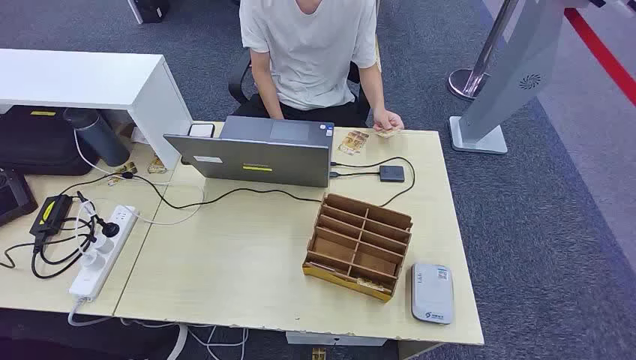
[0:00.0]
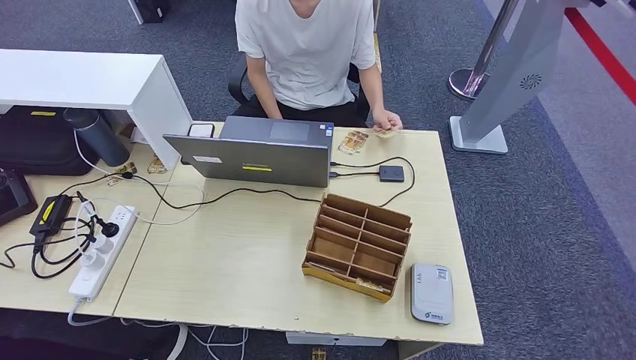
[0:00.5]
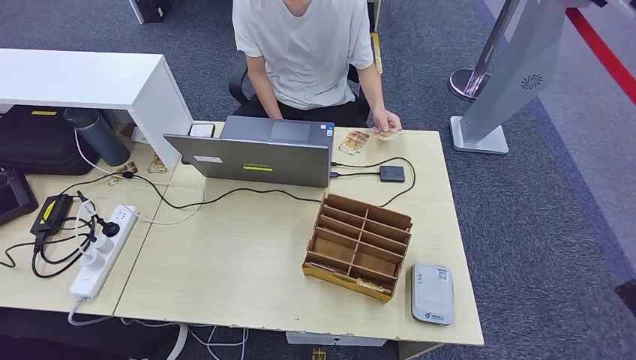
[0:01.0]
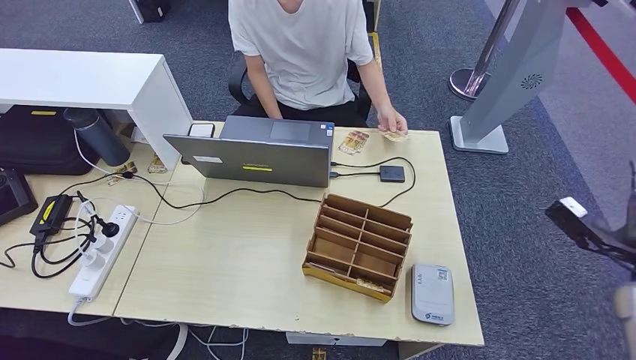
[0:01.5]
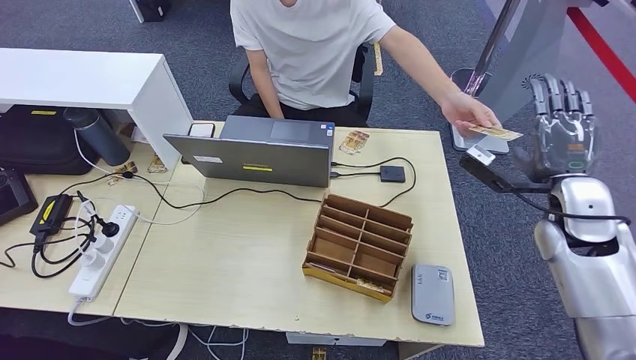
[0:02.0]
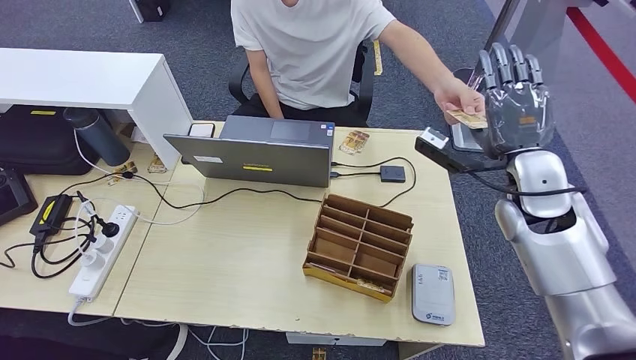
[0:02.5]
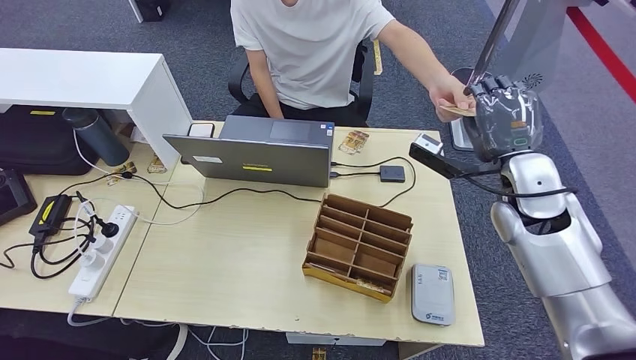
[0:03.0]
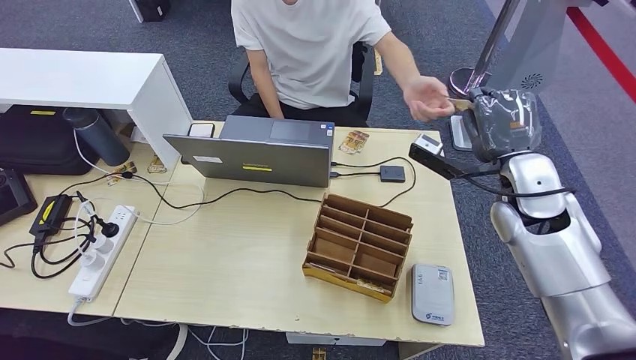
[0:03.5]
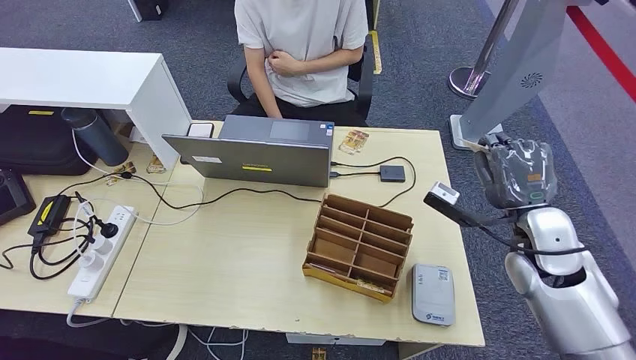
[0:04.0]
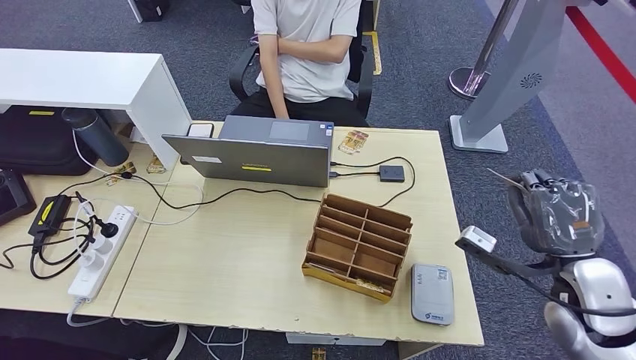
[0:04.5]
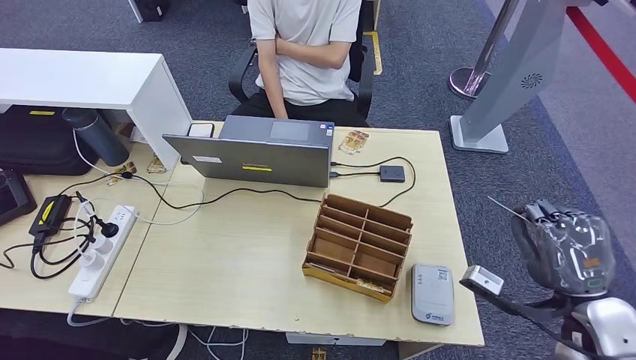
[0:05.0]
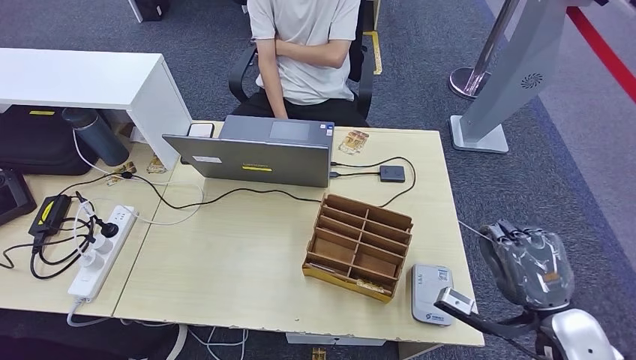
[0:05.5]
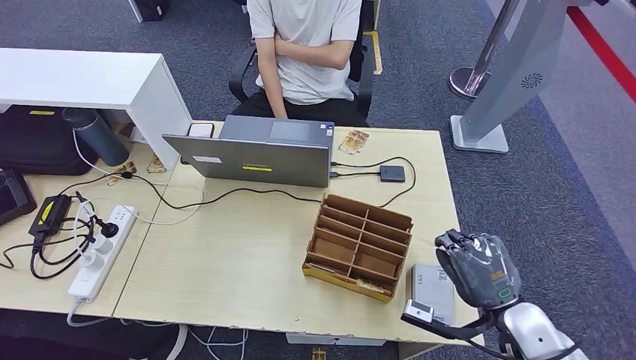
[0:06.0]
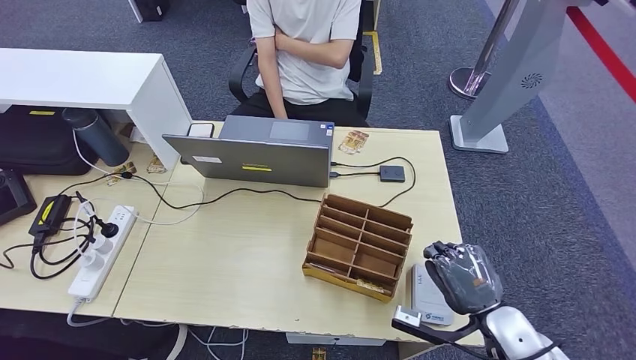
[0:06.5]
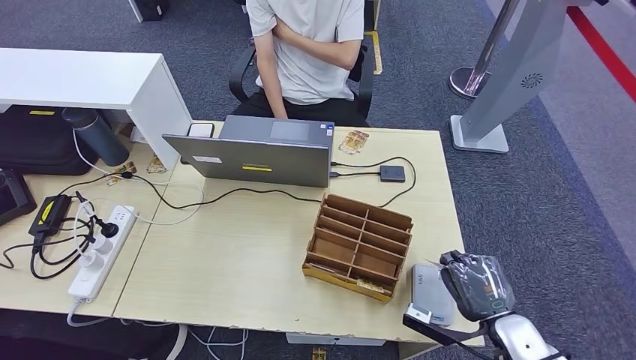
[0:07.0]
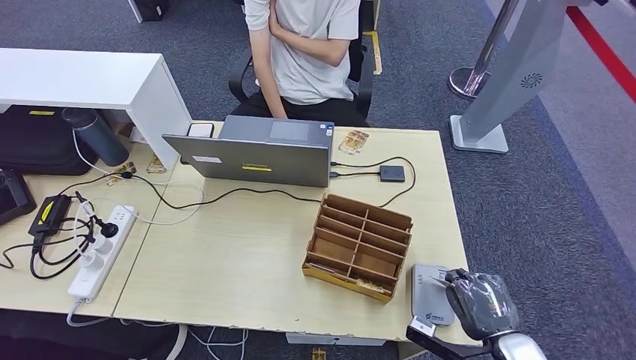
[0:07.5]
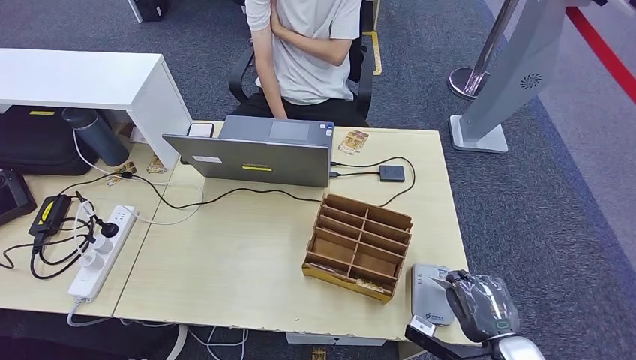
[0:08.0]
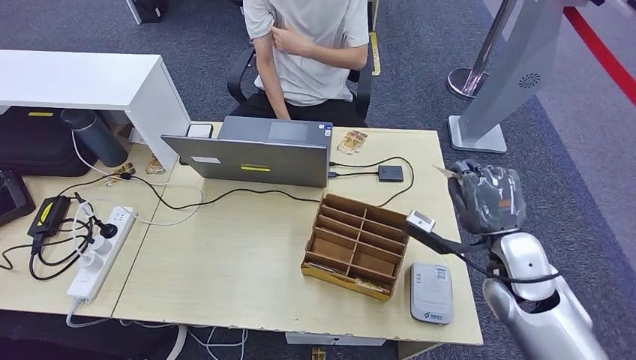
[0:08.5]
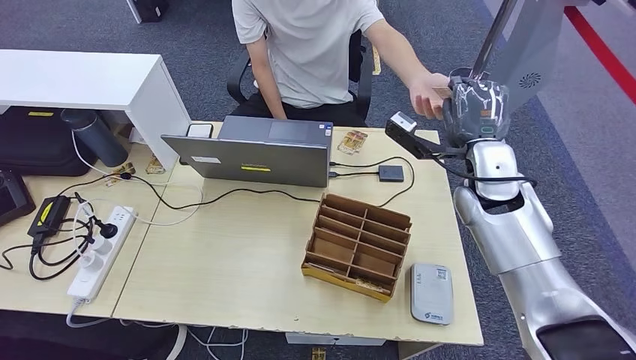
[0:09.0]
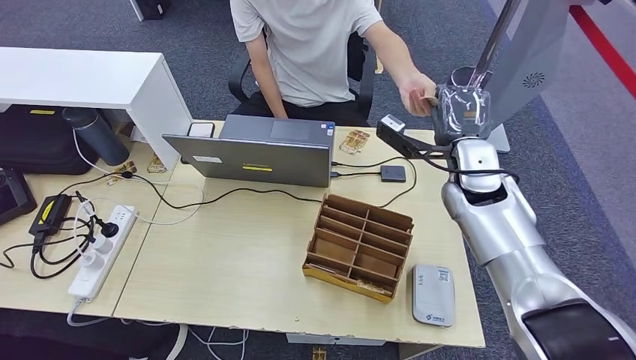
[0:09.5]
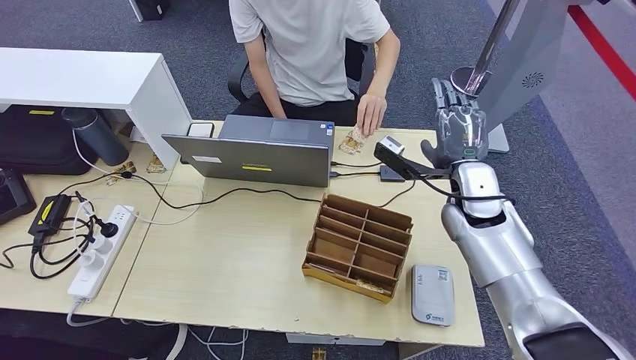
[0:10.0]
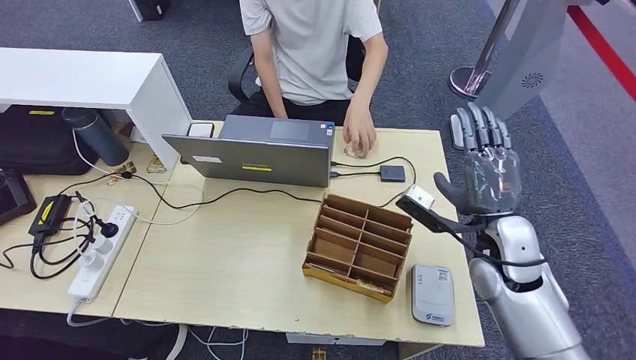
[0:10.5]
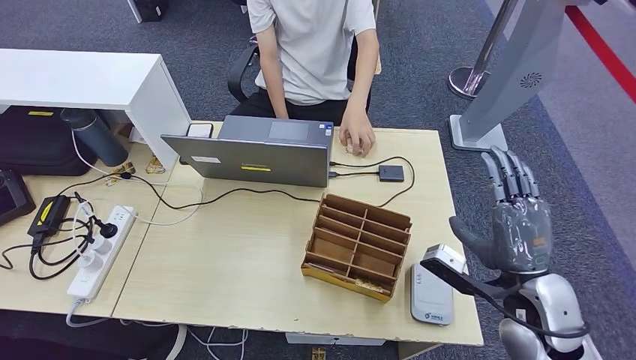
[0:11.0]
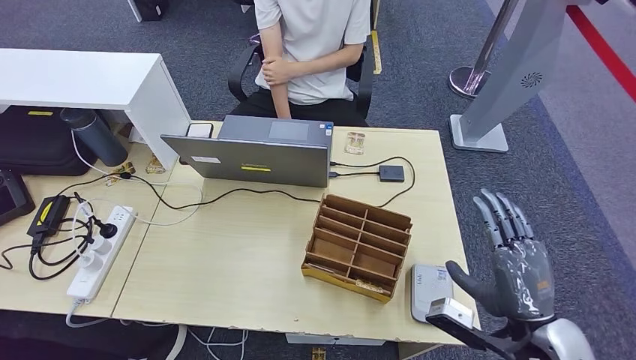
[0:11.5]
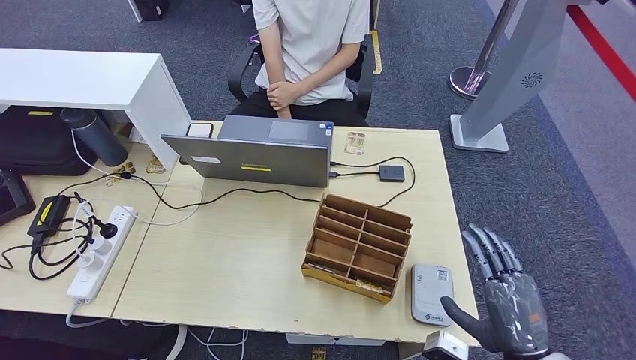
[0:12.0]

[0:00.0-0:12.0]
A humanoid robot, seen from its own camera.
Step, 0:00.0 to 0:03.5: Take the ID card from the person's hand.
Step, 0:04.0 to 0:08.0: Place the ID card on the card reader.
Step, 0:08.5 to 0:10.0: Hand the ID card to the person.
0:02.0 to 0:04.0: The right hand changes place by some 5 cm.
0:04.0 to 0:06.0: The right hand shifts some 15 cm backward and downward.
0:06.0 to 0:08.0: The right hand is displaced downward by some 5 cm.
0:08.0 to 0:10.0: The right hand goes approximately 30 cm forward and upward.
0:10.0 to 0:12.0: The right hand shifts some 25 cm backward.

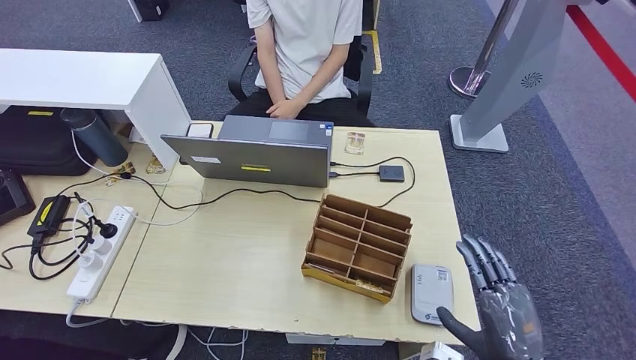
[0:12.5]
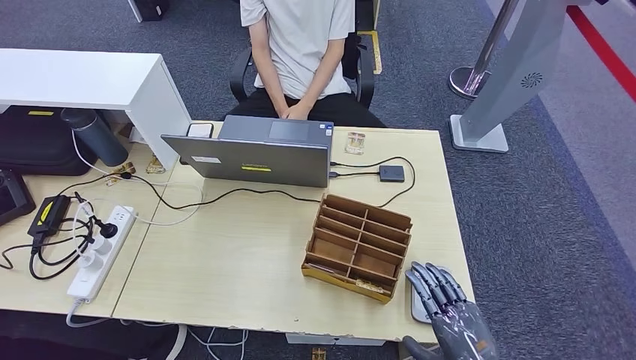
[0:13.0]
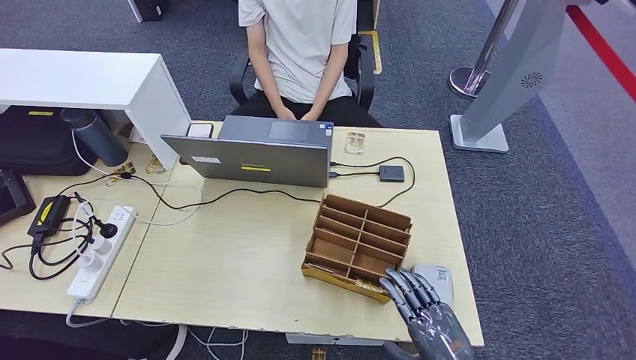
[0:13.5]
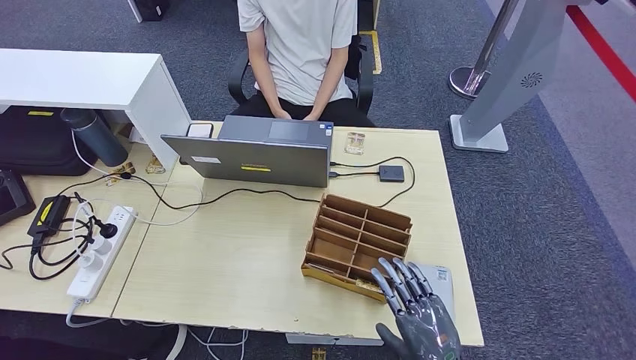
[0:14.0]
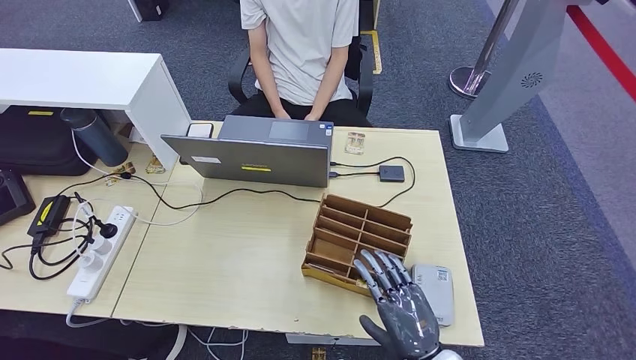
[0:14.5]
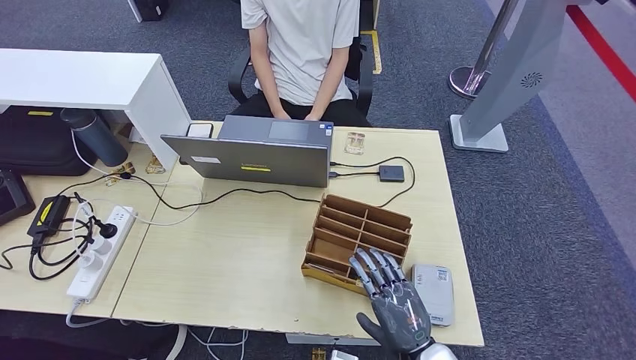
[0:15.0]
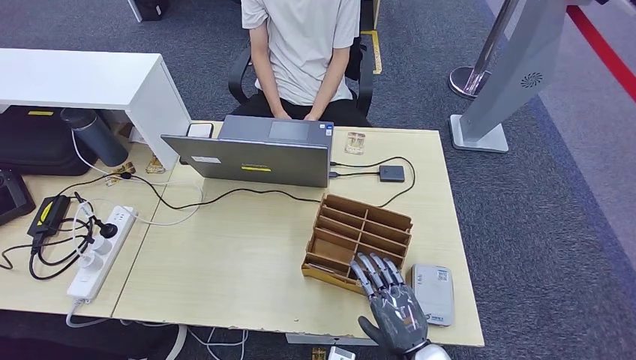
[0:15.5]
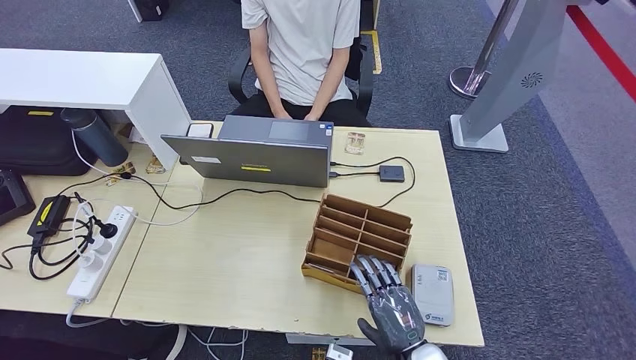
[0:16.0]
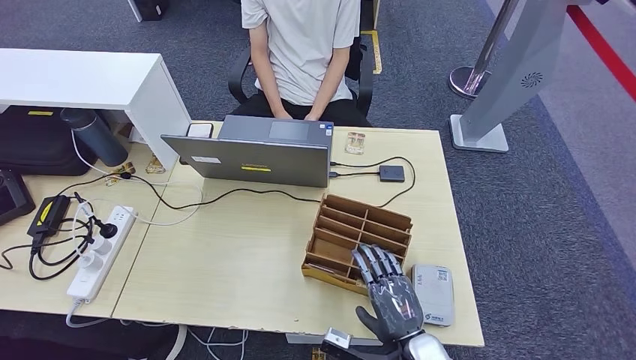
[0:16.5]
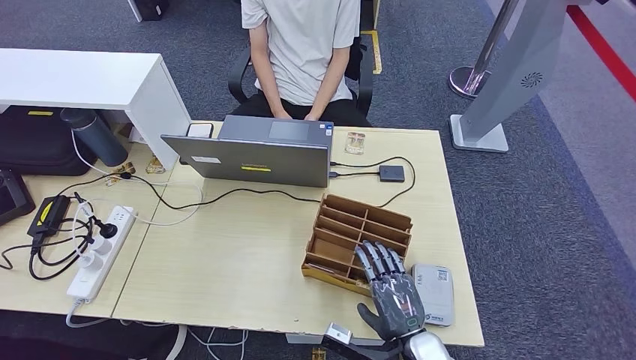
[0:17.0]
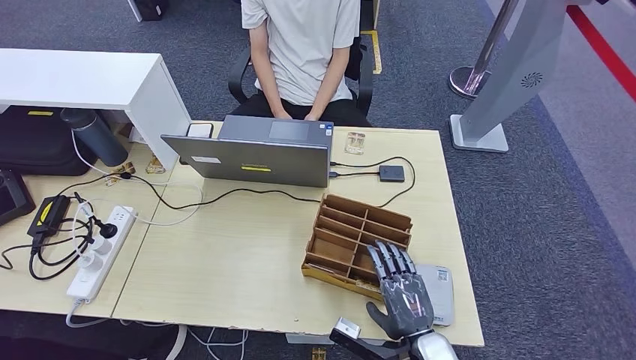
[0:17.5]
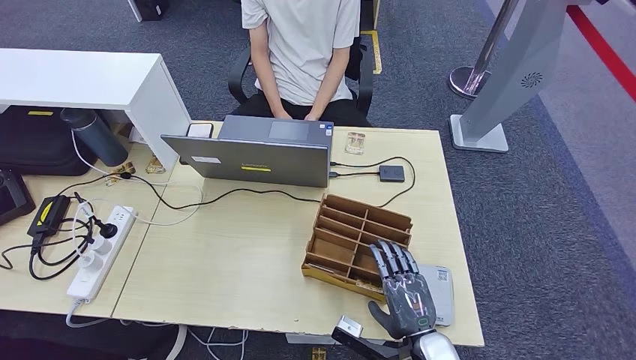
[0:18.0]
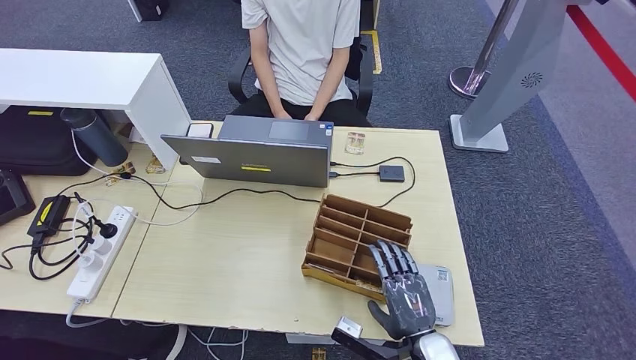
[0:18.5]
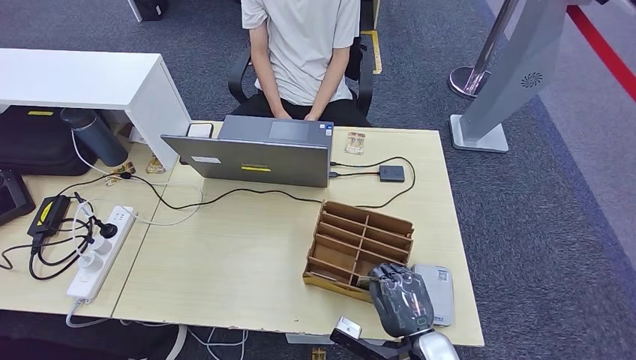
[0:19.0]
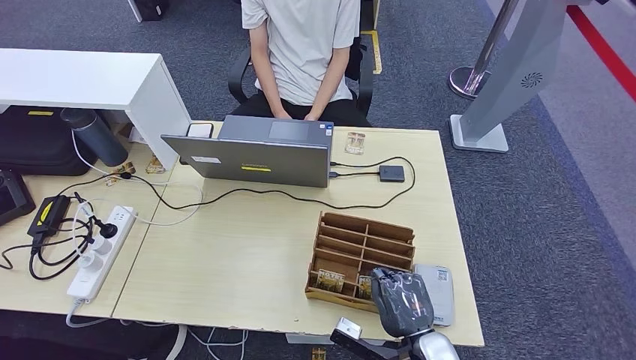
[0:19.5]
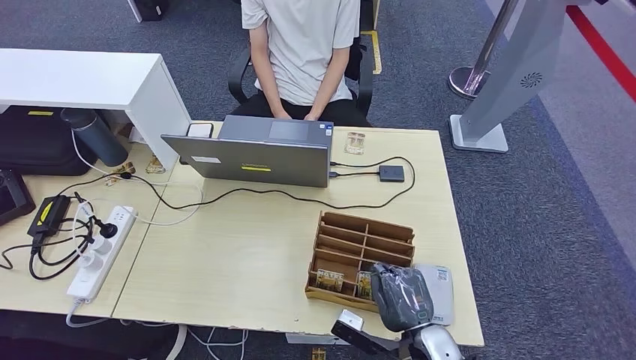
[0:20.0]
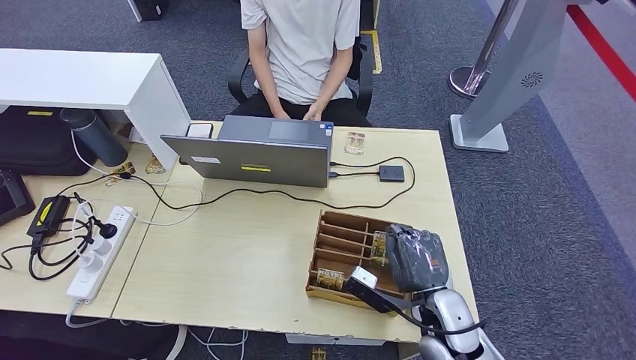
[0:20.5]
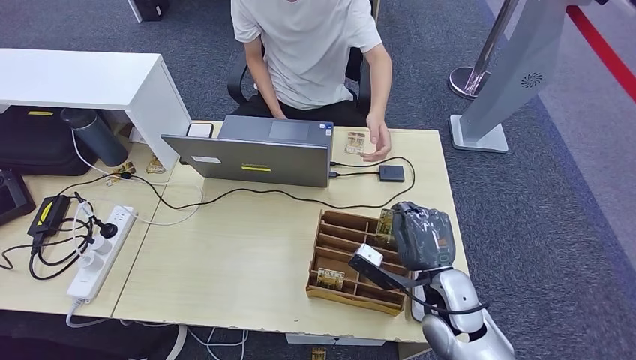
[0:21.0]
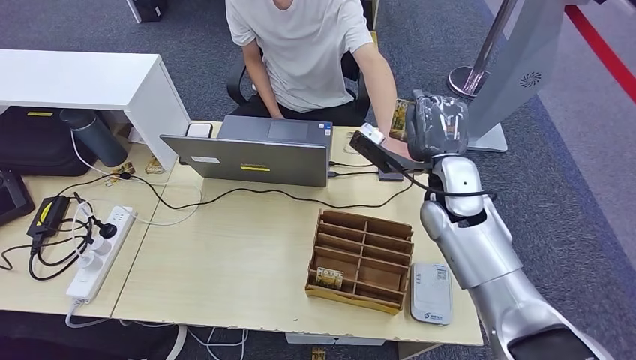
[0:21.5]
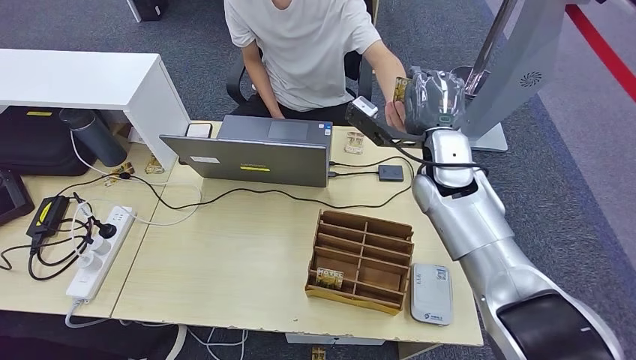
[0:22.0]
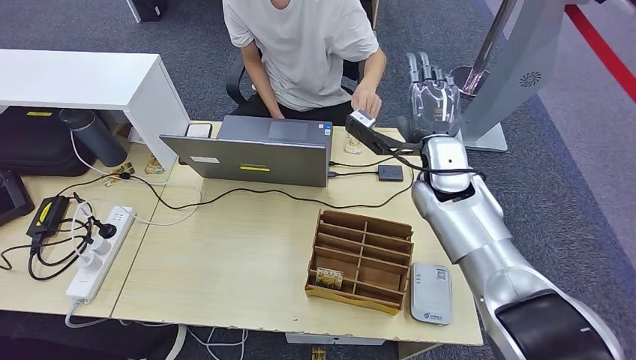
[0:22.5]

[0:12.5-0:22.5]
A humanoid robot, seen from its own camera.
Step, 0:12.5 to 0:19.5: Pick up the room key from the key card box.
Step, 0:20.0 to 0:22.5: Hand the room key to the person.
0:12.5 to 0:14.5: The right hand shifts roughly 10 cm to the left and downward.
0:14.5 to 0:18.5: The hands make only small movements.
0:18.5 to 0:20.5: The right hand travels forward by some 5 cm.
0:20.5 to 0:22.5: The right hand travels forward and upward by some 25 cm.
